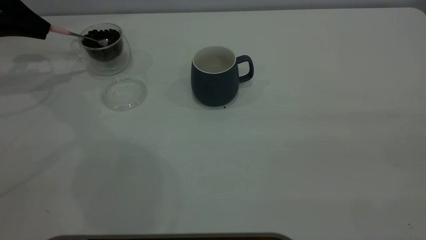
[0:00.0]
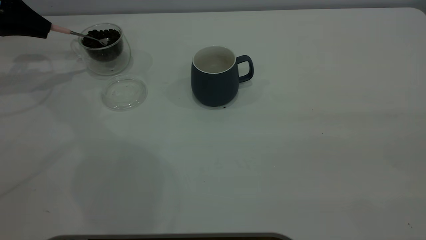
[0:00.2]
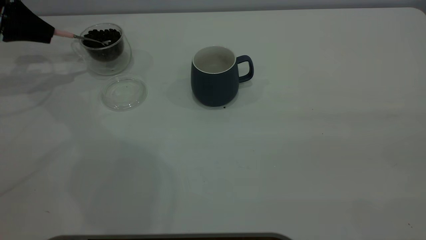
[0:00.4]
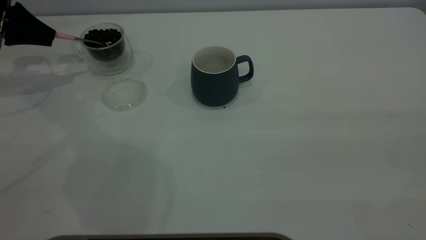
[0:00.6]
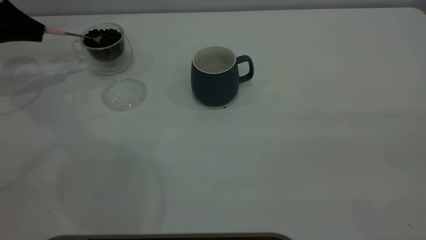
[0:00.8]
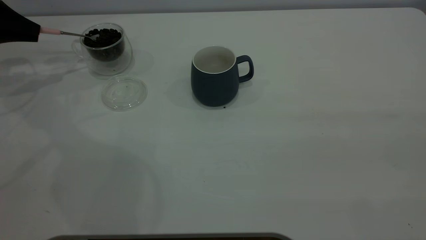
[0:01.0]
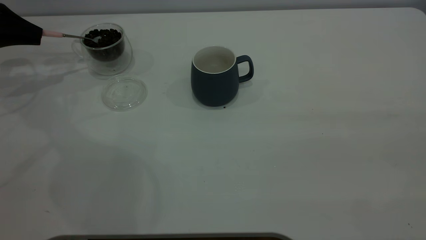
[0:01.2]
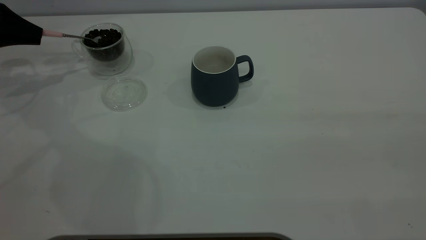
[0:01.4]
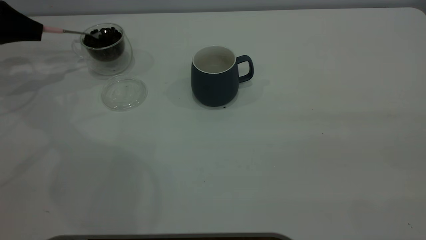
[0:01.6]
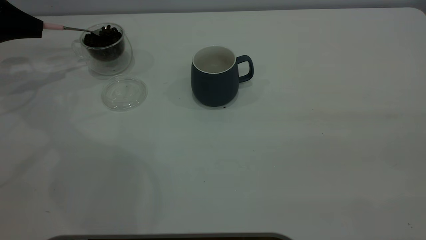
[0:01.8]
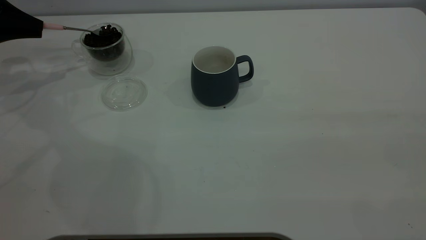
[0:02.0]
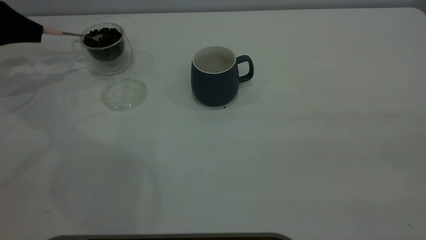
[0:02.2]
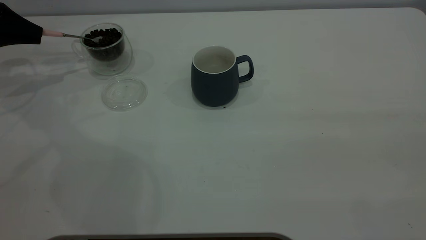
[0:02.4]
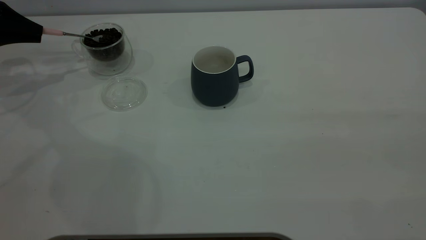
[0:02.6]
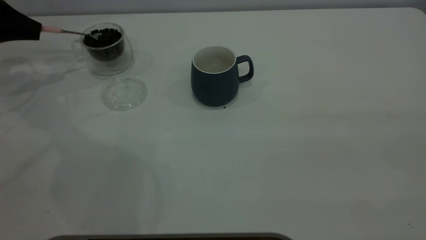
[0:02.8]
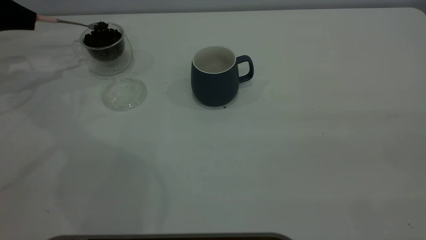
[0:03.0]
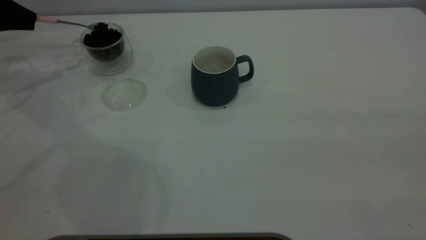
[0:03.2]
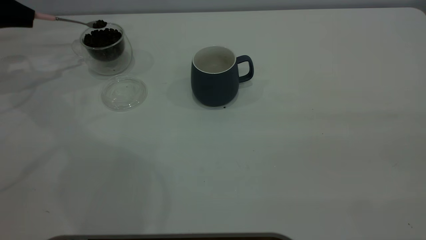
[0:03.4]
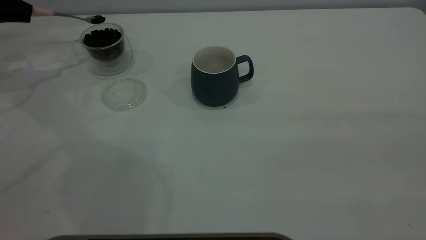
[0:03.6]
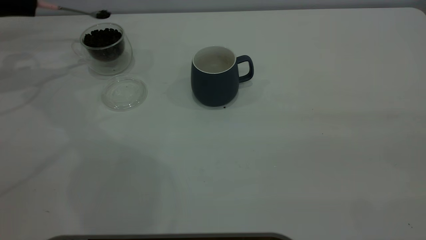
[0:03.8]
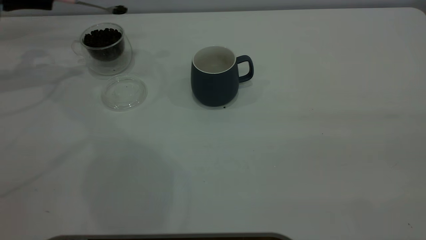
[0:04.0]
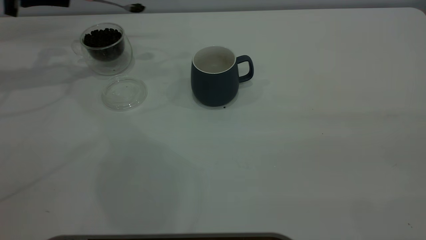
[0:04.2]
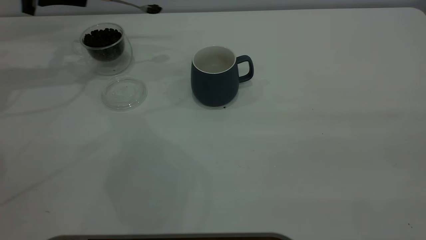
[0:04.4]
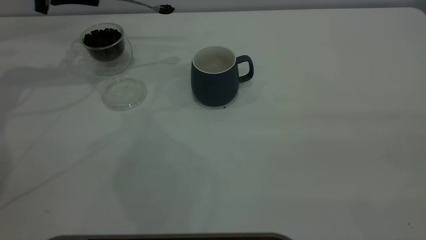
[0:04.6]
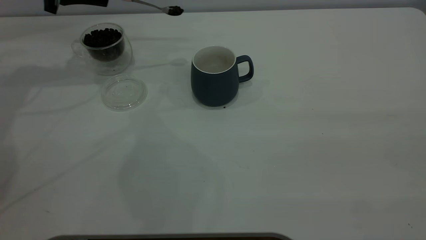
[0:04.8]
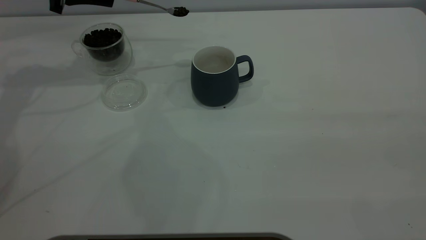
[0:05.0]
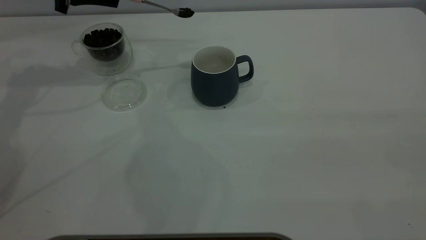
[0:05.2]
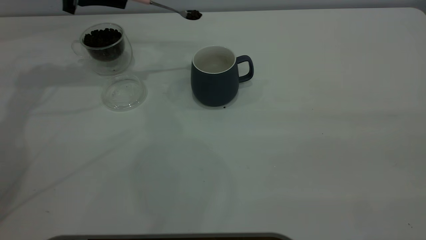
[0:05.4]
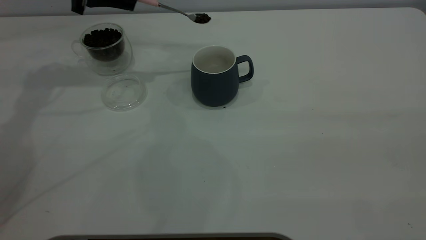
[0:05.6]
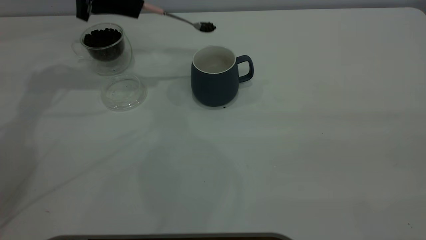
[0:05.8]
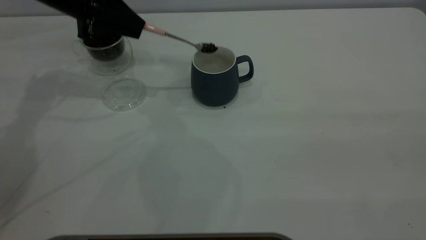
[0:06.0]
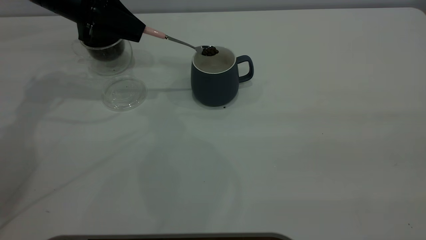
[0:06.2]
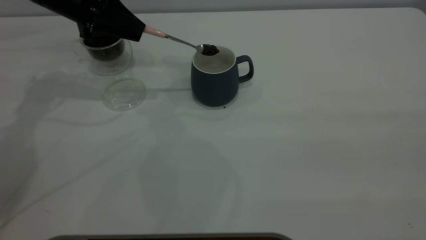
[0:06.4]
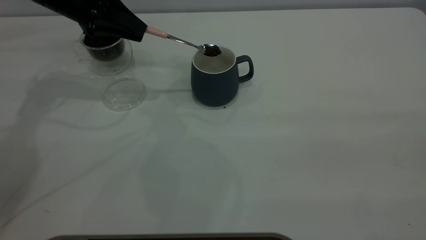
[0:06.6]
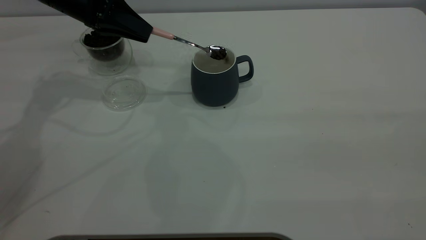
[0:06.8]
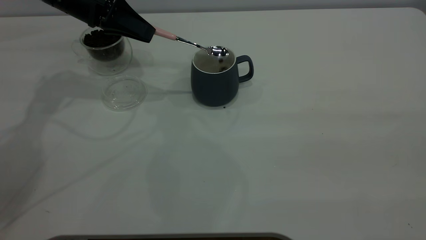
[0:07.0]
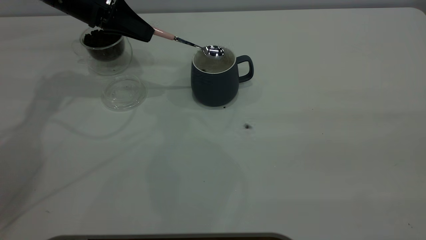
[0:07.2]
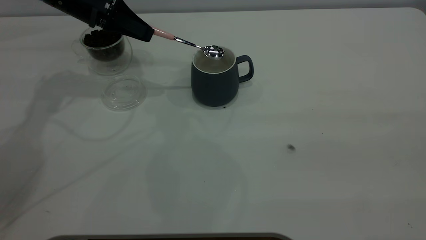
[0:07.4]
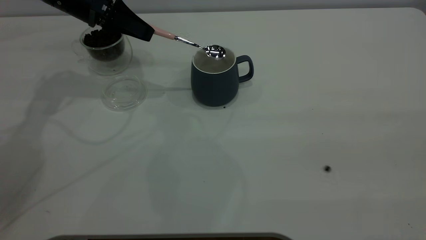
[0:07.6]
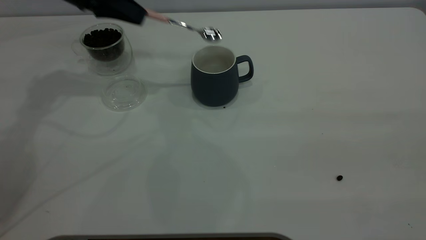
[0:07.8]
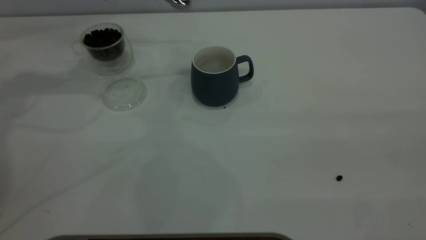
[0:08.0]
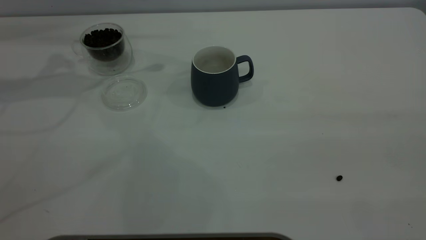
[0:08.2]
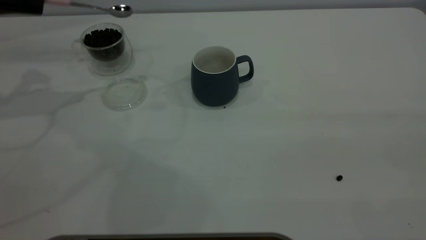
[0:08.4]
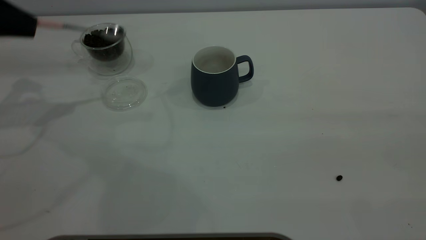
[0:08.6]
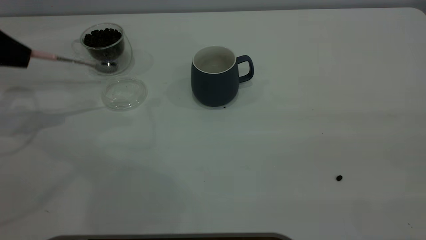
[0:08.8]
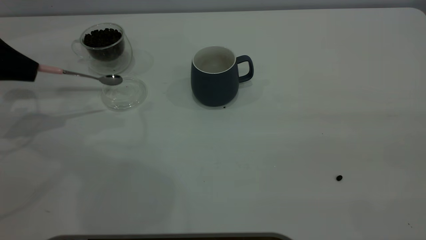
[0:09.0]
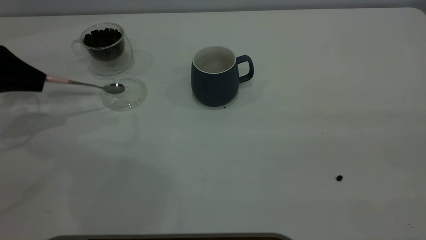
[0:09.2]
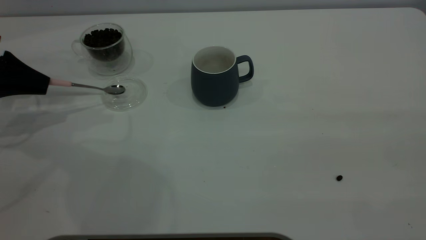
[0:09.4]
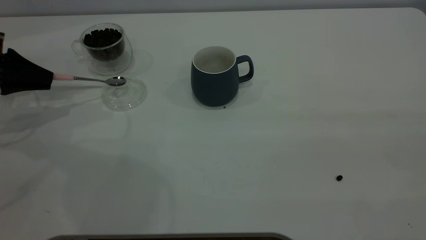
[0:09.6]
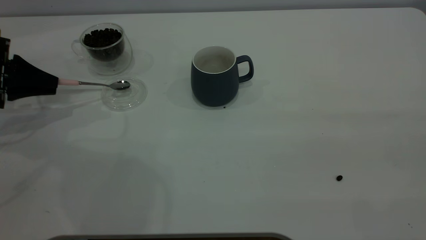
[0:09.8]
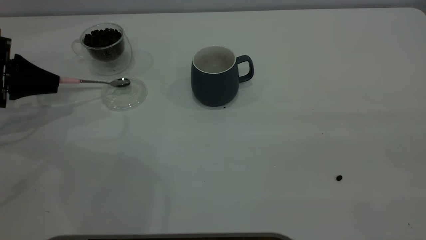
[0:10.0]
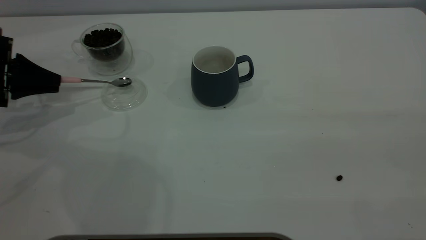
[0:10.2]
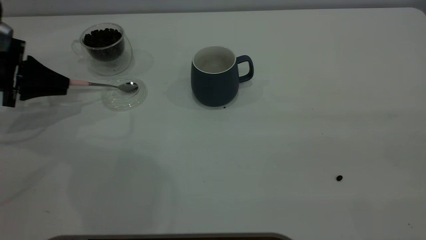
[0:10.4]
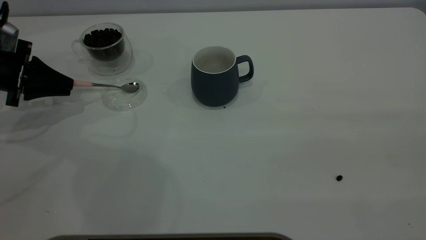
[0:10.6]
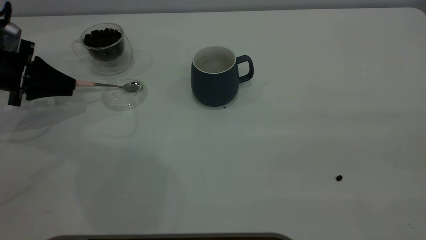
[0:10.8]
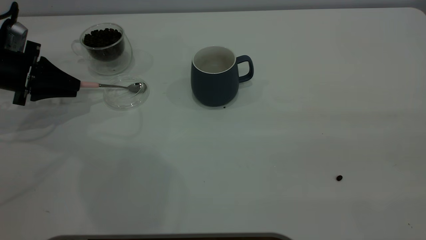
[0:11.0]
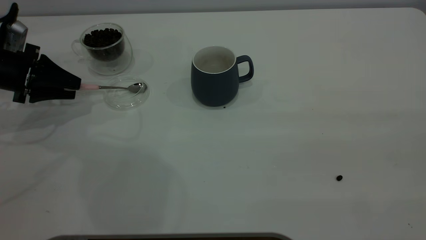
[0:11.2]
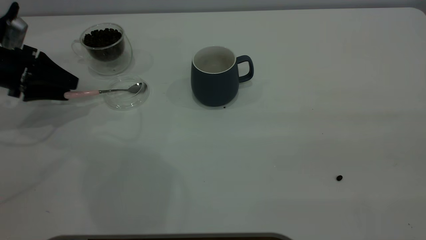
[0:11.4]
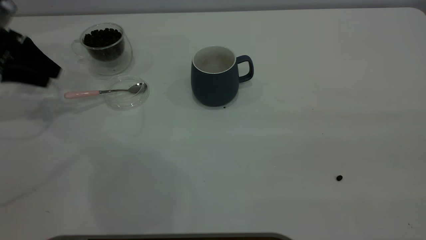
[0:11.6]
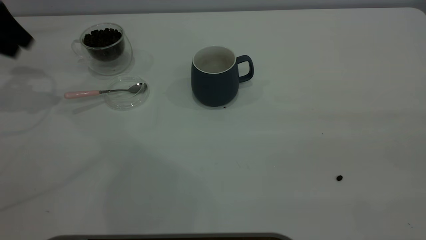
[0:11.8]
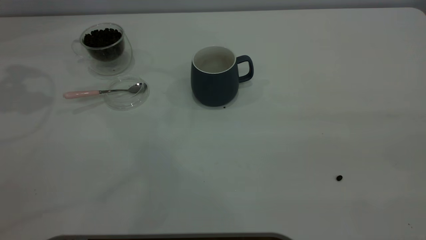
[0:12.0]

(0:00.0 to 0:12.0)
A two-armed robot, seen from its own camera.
Task of the whole recording: the right gripper place the grey cup in the center of the table, the left gripper take the pink spoon from the cup lid and scoop out the coffee beans from the coffee cup and put them into the grey cup, the left gripper put the spoon back into the cup lid.
Step, 0:00.0 - 0:07.8: Scoop a spoonful of beans into the cup.
Step, 0:08.0 - 0:11.6: Place the spoon back in its original place.
0:00.0 - 0:03.0: The grippers stay close to where they were, moving slightly.
0:03.0 - 0:04.4: The left gripper travels to the right by about 10 cm.
0:04.4 - 0:06.0: The left gripper is displaced to the right by about 10 cm.
0:07.6 - 0:09.0: The left gripper moves to the left and backward, roughly 20 cm.
0:09.0 - 0:10.4: The left gripper travels downward by approximately 5 cm.
0:10.4 - 0:12.0: The left gripper is displaced upward by roughly 25 cm, and opens its fingers.
